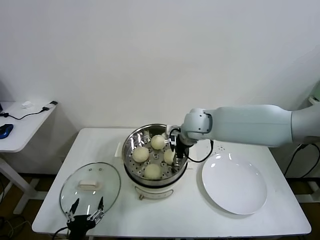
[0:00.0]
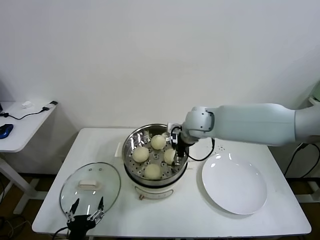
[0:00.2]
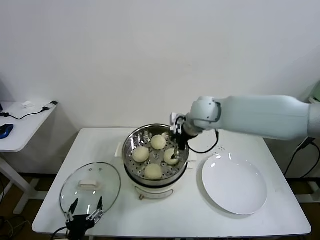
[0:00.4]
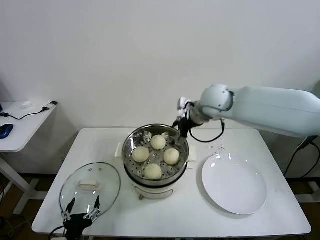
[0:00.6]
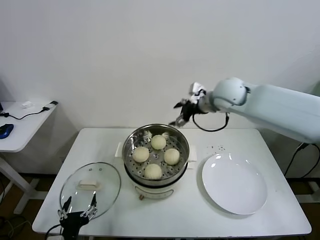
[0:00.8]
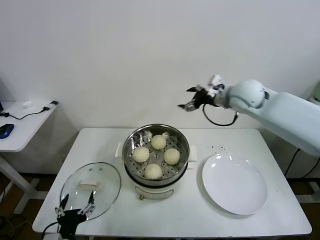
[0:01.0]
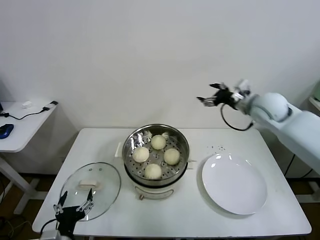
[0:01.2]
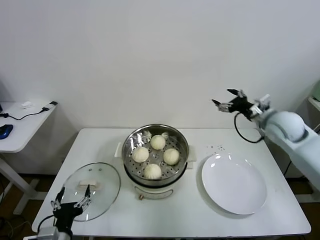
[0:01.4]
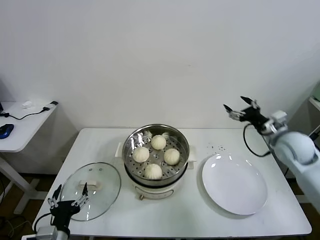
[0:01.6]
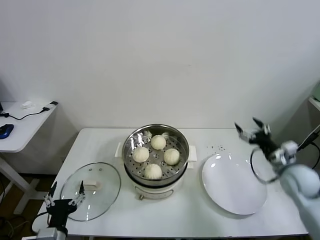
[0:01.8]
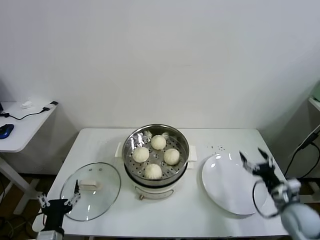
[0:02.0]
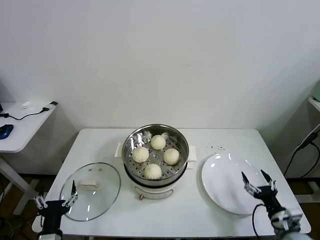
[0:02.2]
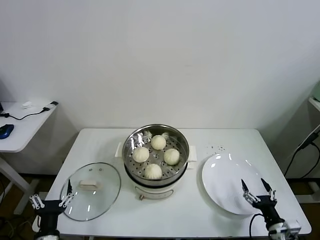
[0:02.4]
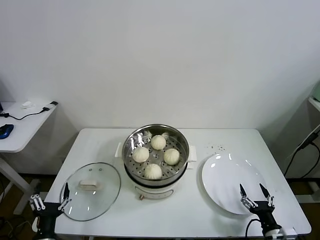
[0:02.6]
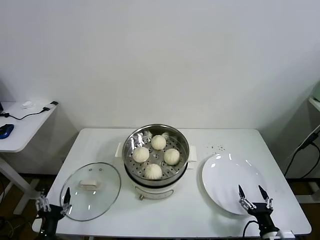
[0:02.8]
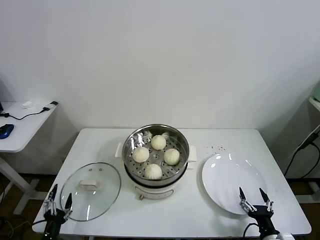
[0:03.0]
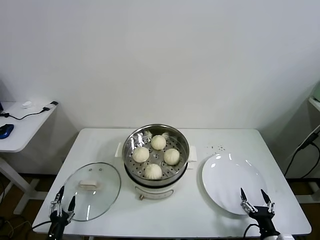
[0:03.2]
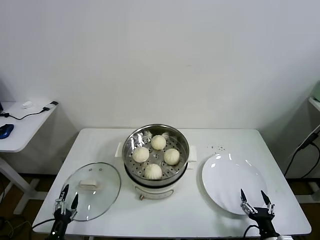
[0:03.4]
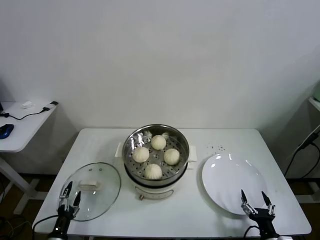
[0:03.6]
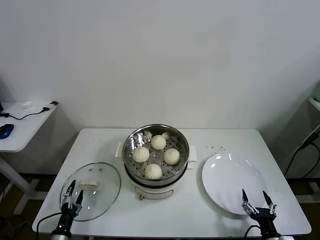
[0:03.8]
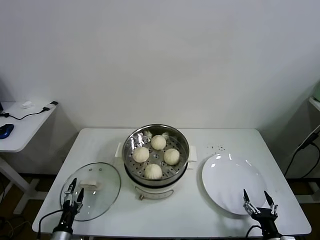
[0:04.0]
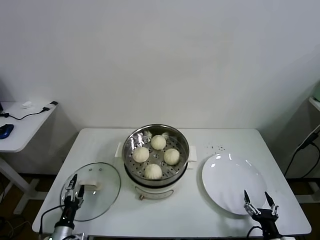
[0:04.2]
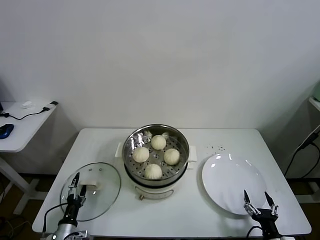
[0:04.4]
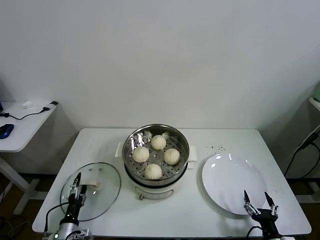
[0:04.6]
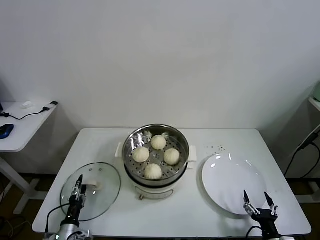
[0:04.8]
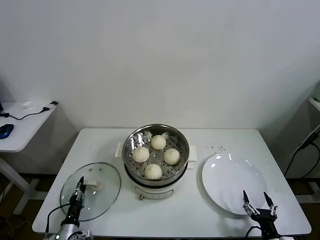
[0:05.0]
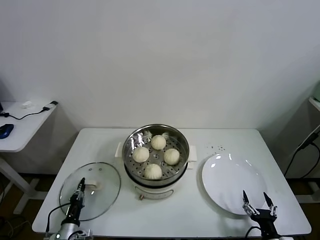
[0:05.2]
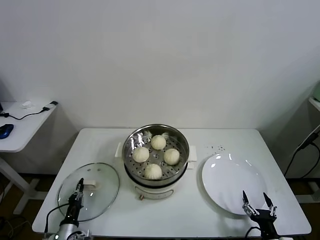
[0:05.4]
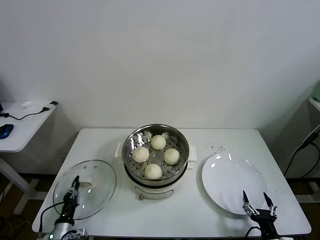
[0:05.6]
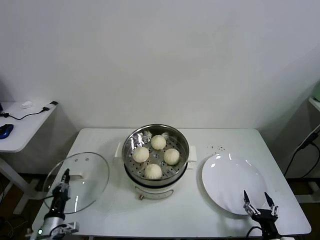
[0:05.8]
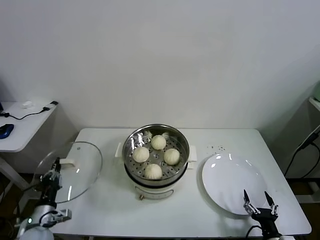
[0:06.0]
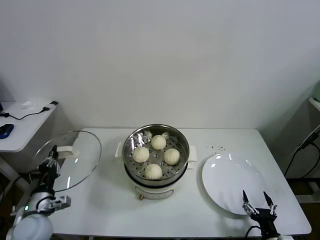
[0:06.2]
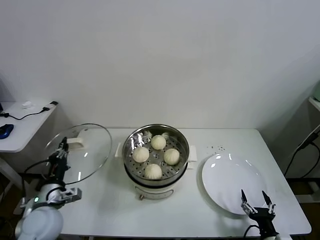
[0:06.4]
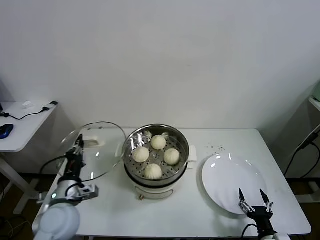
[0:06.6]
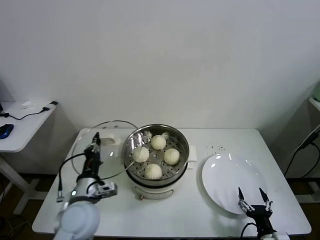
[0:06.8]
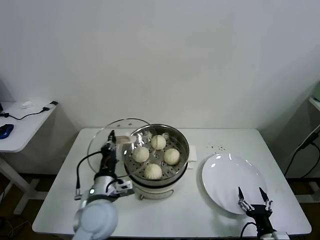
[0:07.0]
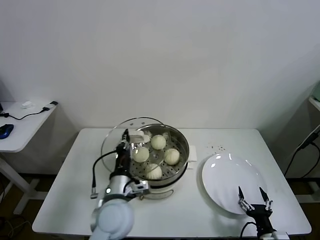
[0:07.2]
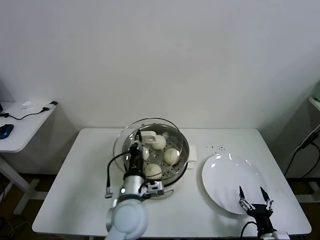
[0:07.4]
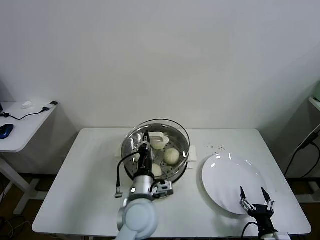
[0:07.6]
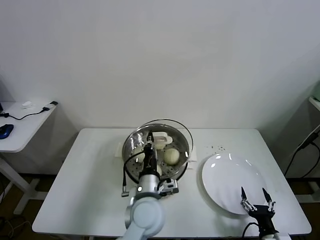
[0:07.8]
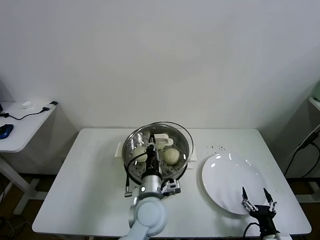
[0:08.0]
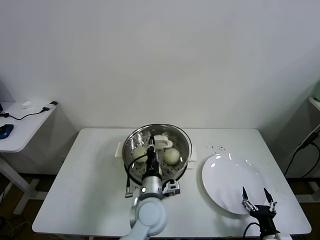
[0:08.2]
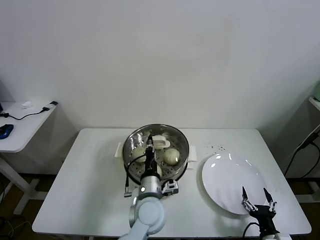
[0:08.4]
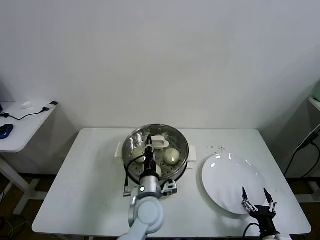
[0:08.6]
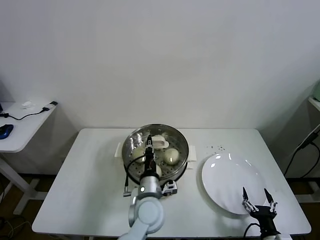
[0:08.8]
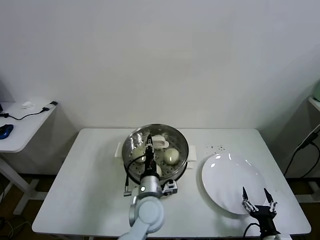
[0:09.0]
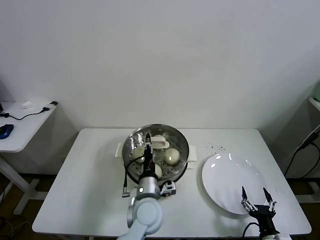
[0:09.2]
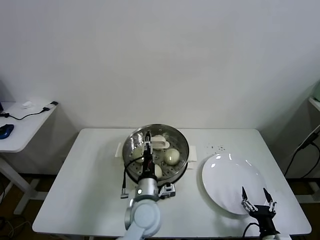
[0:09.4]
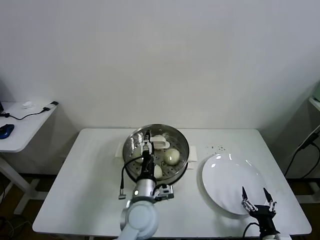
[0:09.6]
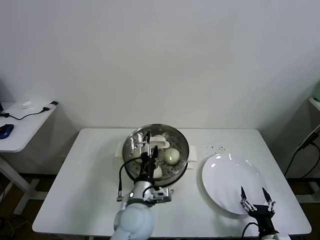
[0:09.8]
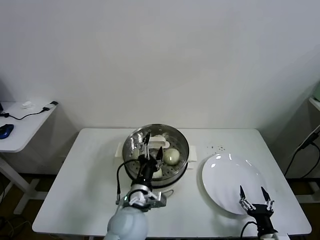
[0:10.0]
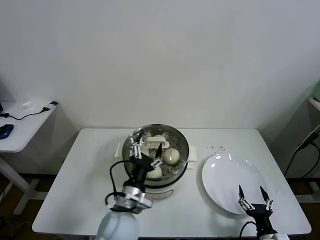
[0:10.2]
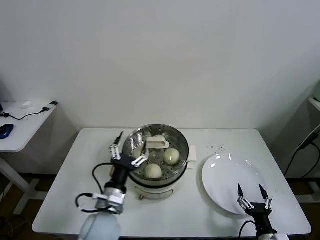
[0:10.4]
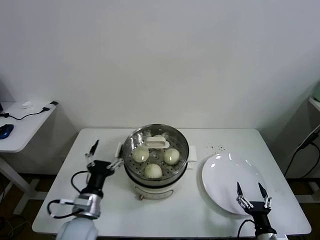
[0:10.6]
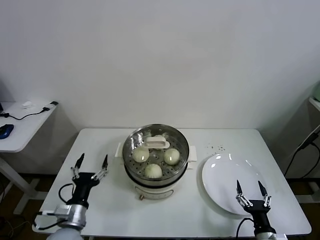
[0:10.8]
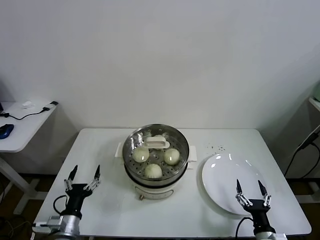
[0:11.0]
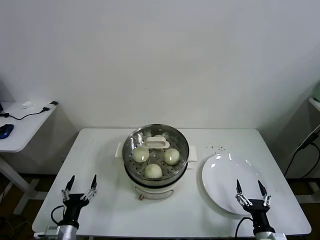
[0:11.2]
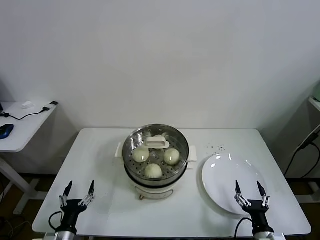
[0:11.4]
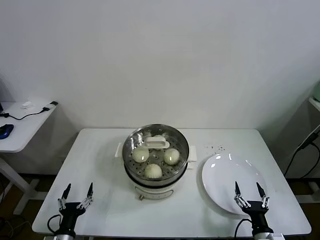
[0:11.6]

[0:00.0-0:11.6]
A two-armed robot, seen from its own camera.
Task of the whole recording: take steamed baozi put them in steamer.
Step, 0:00.4 to 0:05.4: Grasp the pot lid with left gripper.
Step, 0:05.6 to 0:09.6: Place the pot lid on the steamer with left gripper.
0:00.0 to 0:01.4: The right gripper moves to the right, approximately 25 cm.
0:01.4 to 0:02.8: The left gripper heads downward and to the left, covering approximately 10 cm. The right gripper shifts roughly 40 cm backward and downward.
0:02.8 to 0:04.4: The left gripper is displaced downward and forward by some 10 cm.
0:04.4 to 0:05.8: The left gripper closes up.
0:05.8 to 0:07.2: The left gripper travels to the right and upward by roughly 30 cm.
0:07.2 to 0:08.8: The left gripper shifts about 10 cm to the right and downward.
0:08.8 to 0:10.2: The left gripper goes roughly 5 cm to the left, and opens.
0:10.2 to 0:11.6: The left gripper travels to the left and downward by roughly 30 cm.

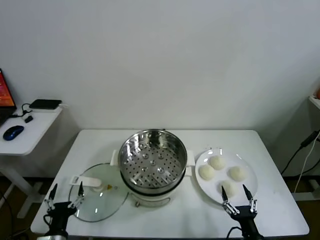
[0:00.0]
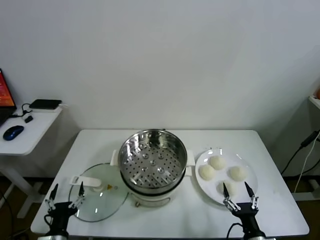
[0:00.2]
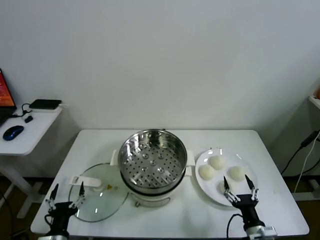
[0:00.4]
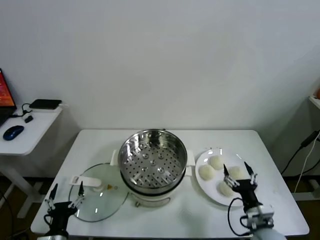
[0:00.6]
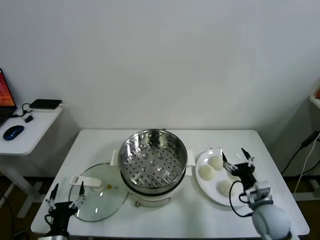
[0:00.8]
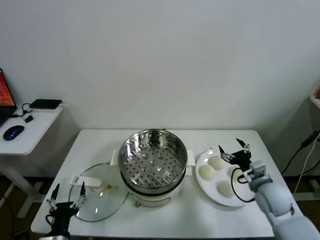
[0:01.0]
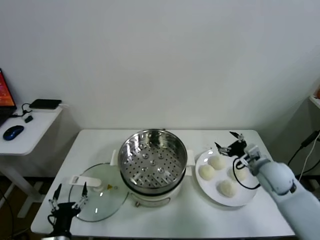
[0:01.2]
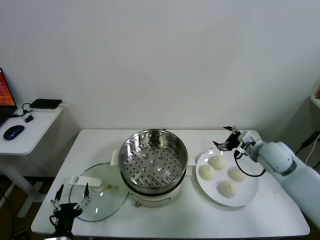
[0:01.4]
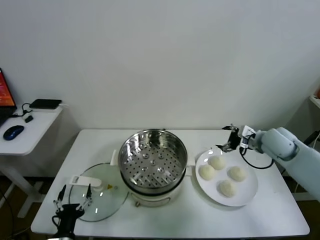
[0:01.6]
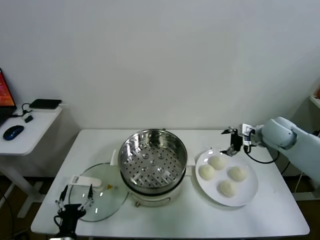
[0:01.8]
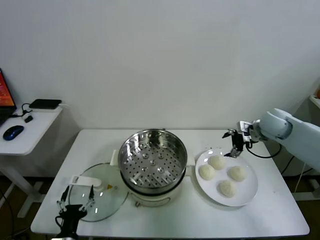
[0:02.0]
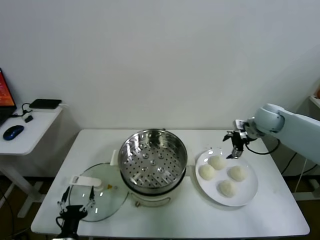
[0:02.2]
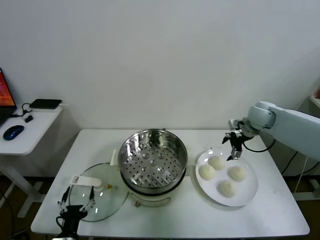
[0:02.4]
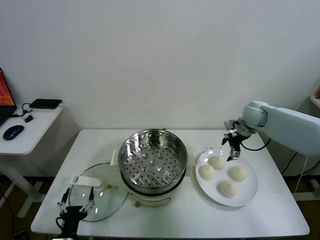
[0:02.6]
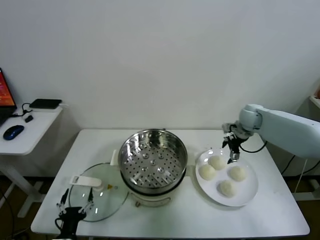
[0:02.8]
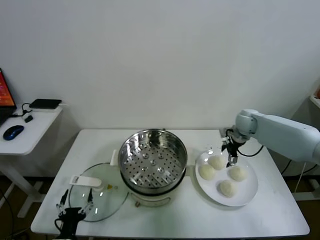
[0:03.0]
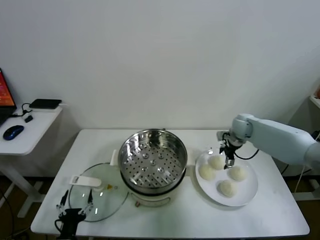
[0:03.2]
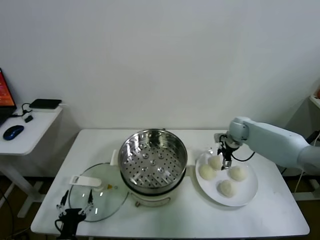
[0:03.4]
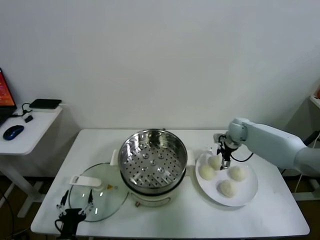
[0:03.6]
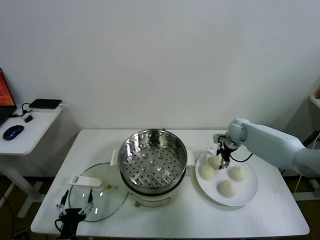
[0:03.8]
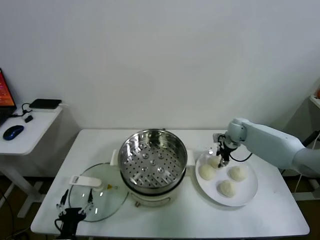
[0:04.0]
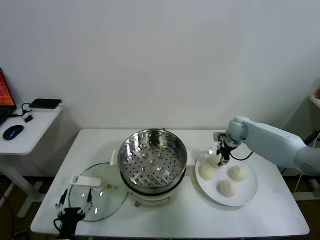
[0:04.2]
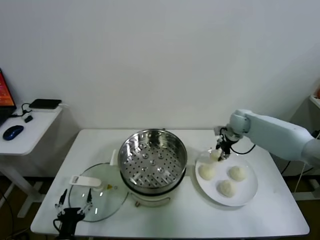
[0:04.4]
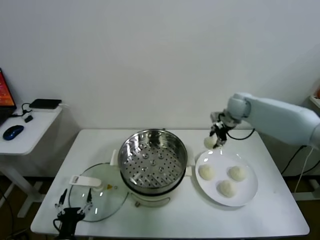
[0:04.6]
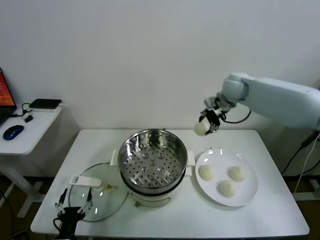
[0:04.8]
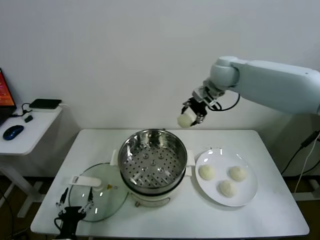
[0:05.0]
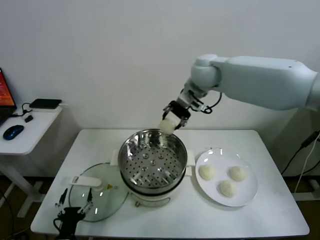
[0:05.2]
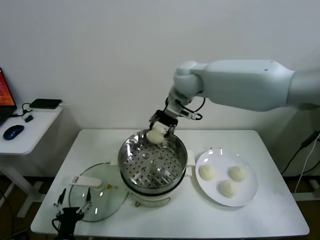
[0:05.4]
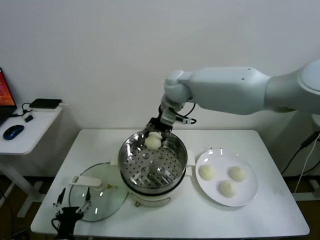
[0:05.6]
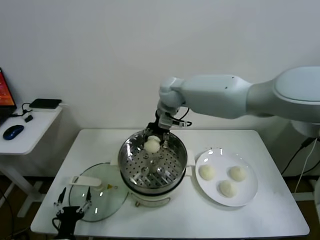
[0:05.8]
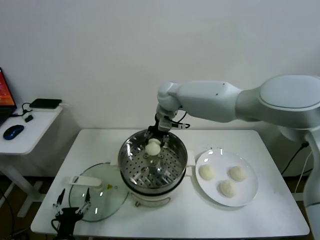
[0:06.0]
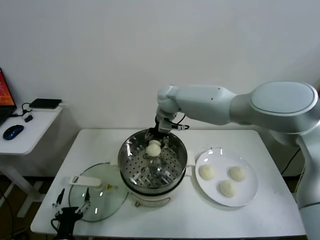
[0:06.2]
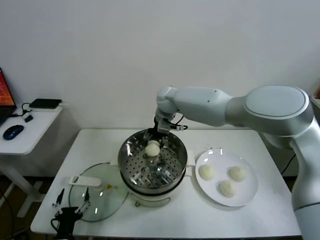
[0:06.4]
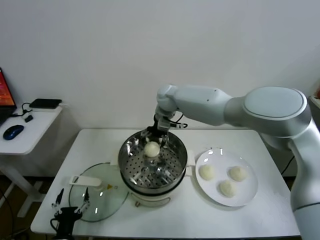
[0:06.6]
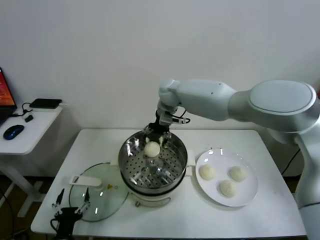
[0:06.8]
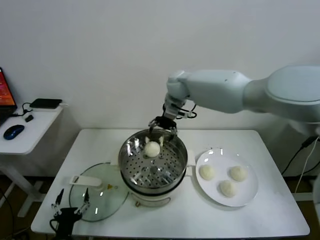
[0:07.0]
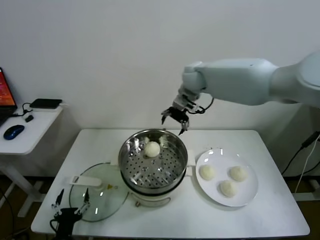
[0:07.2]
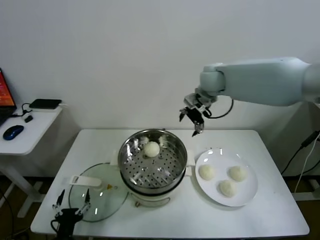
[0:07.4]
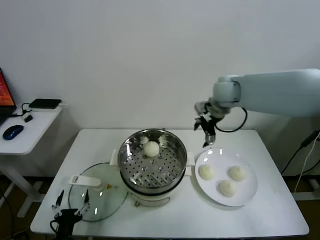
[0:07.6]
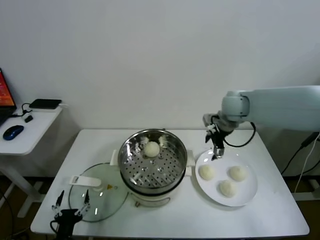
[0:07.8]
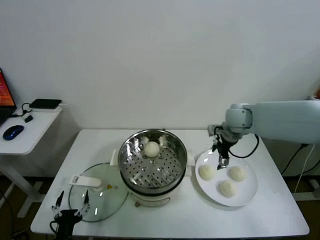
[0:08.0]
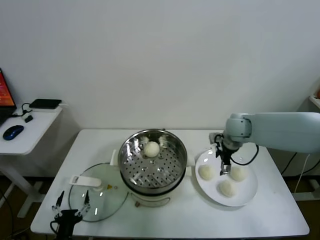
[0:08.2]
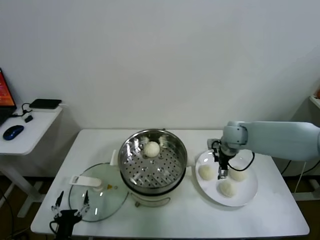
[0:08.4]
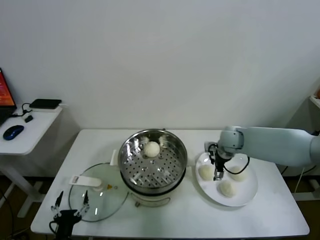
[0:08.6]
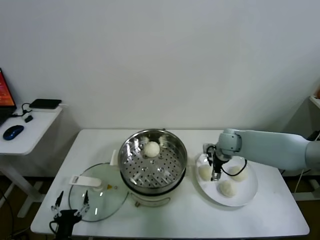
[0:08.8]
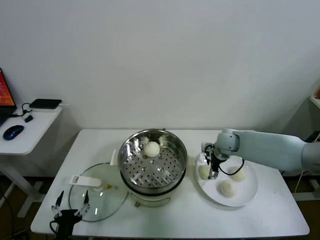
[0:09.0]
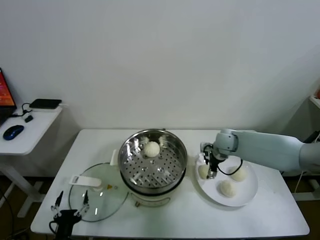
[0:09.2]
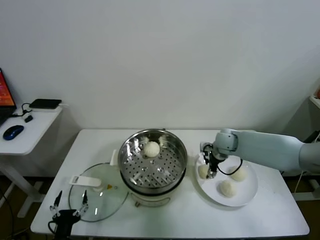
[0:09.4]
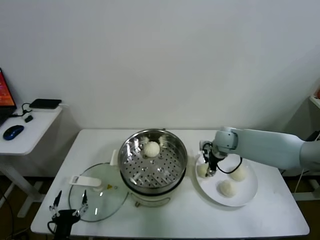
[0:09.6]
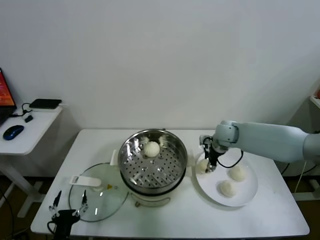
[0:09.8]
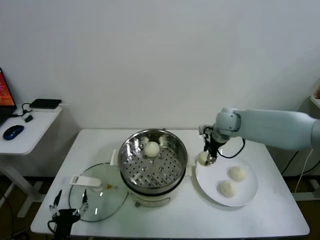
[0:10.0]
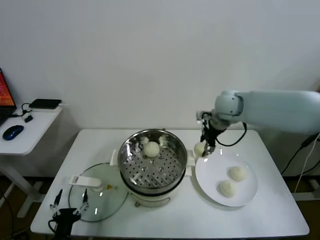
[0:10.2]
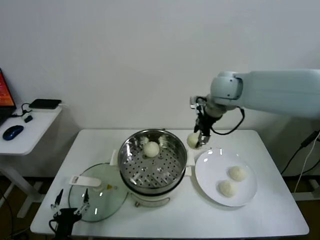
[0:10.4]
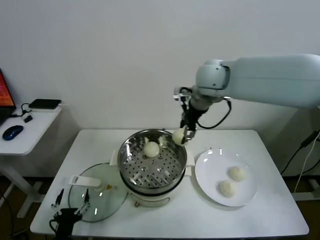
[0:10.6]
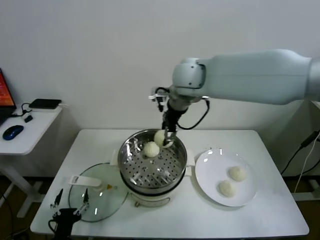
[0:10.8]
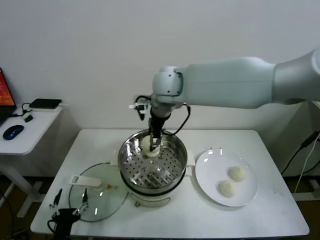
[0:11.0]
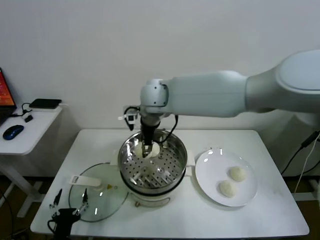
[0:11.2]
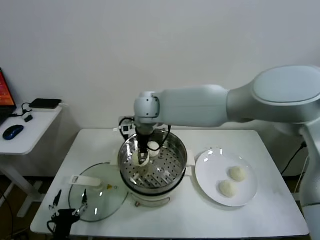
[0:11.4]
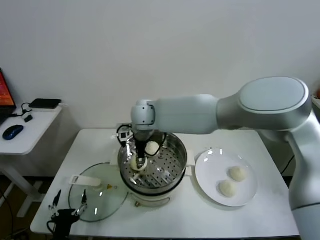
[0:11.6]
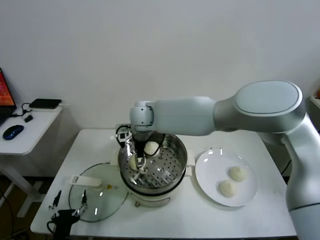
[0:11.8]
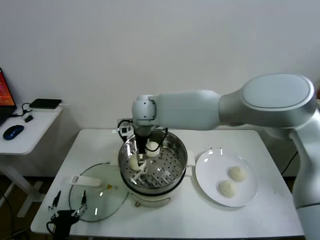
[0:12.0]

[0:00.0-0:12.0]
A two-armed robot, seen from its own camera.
Task of the whole recording: take steamed baozi put them in steamer.
Step, 0:00.0 to 0:04.0: Grasp the baozi in the plate with right gripper.
Step, 0:04.2 to 0:06.6: Place the baozi on the steamer with right gripper.
Step, 0:06.8 to 0:09.6: Grasp the baozi in the plate with right gripper.
0:01.6 to 0:03.0: The right gripper is displaced forward and downward by some 15 cm.
0:03.0 to 0:04.4: The right gripper moves about 5 cm, and closes its fingers.
0:04.4 to 0:06.0: The right gripper is displaced to the left by some 25 cm.
0:06.0 to 0:07.6: The right gripper is displaced to the right by some 20 cm, and opens.
0:07.6 to 0:09.0: The right gripper is displaced downward by approximately 20 cm.
0:09.0 to 0:10.4: The right gripper heads upward, covering about 25 cm, and closes its fingers.
0:10.4 to 0:12.0: The right gripper moves to the left, about 20 cm, and opens its fingers.
